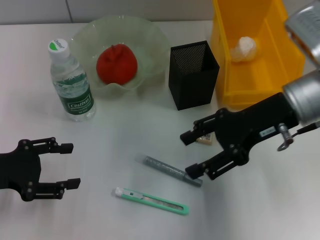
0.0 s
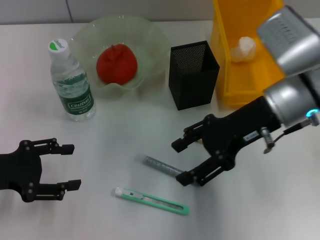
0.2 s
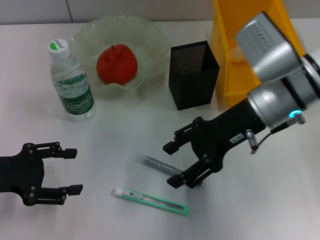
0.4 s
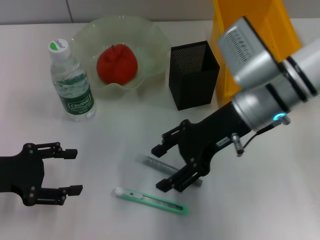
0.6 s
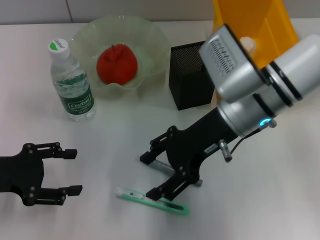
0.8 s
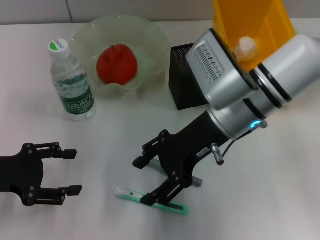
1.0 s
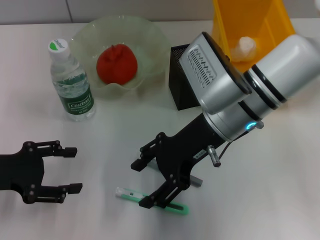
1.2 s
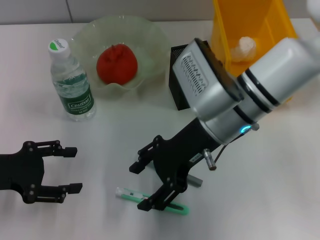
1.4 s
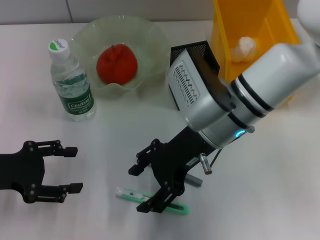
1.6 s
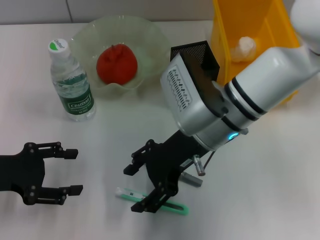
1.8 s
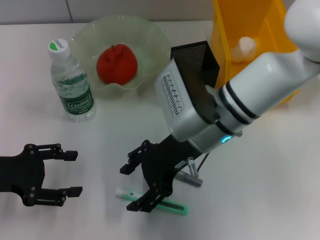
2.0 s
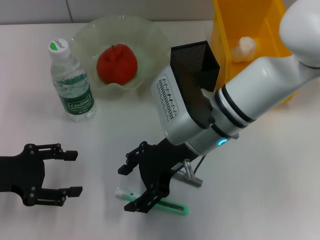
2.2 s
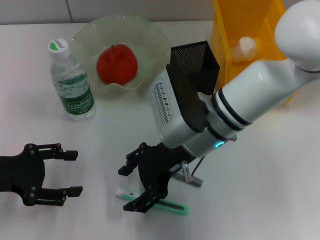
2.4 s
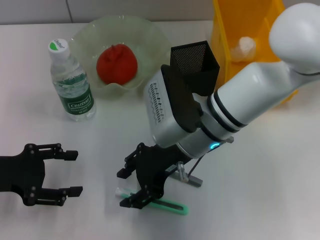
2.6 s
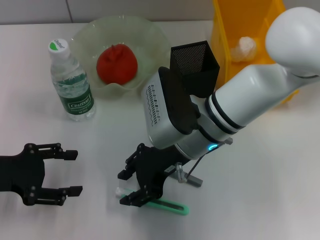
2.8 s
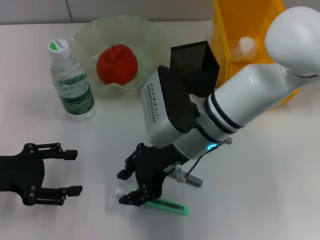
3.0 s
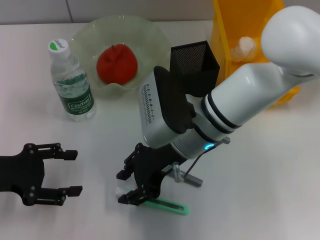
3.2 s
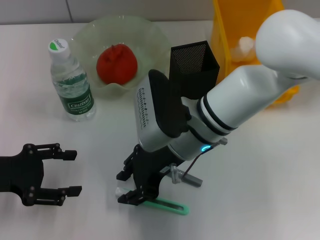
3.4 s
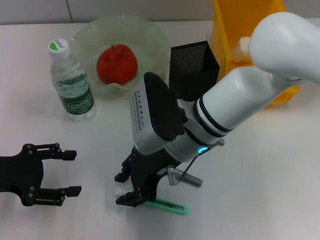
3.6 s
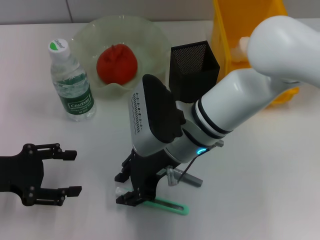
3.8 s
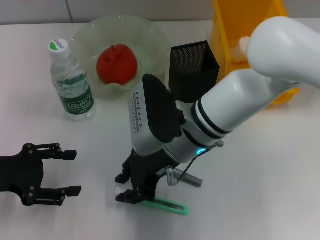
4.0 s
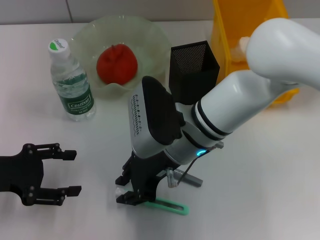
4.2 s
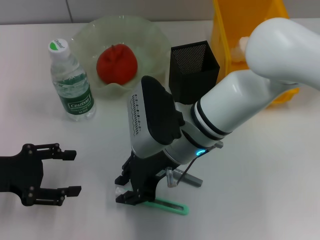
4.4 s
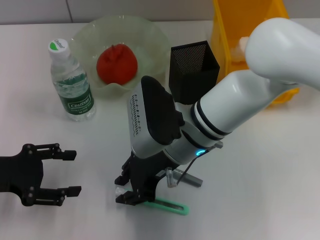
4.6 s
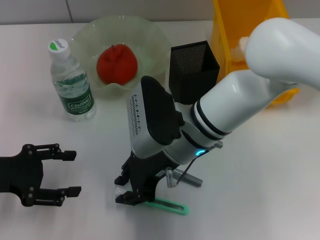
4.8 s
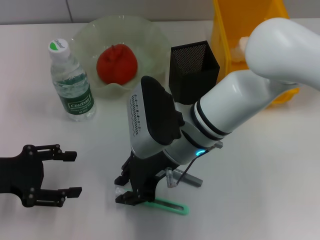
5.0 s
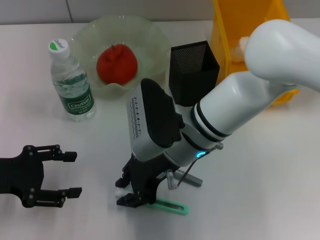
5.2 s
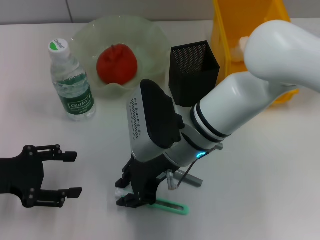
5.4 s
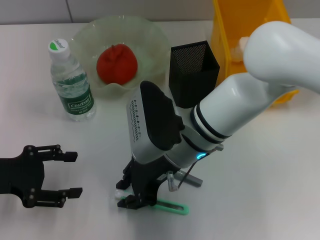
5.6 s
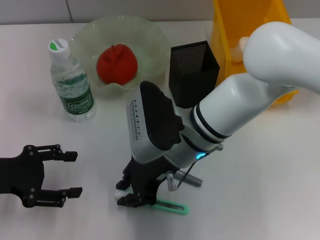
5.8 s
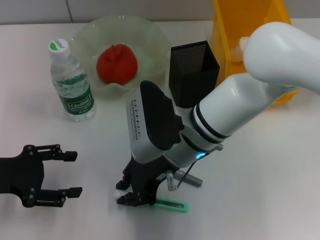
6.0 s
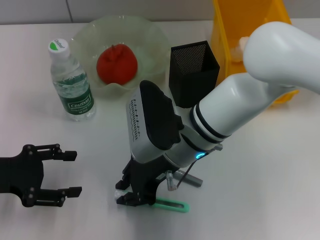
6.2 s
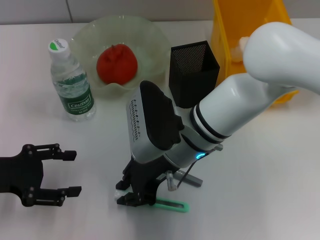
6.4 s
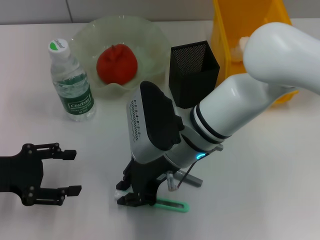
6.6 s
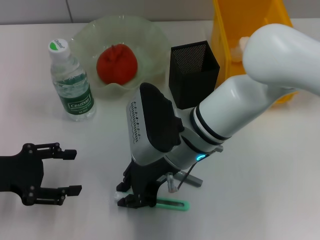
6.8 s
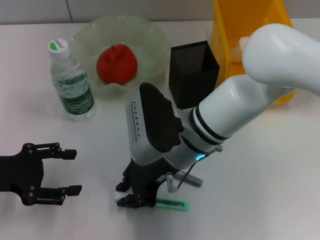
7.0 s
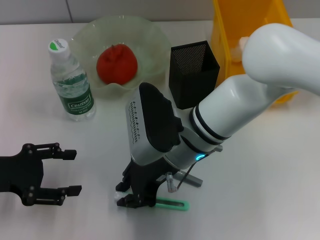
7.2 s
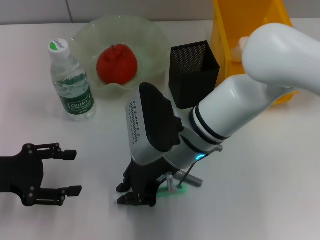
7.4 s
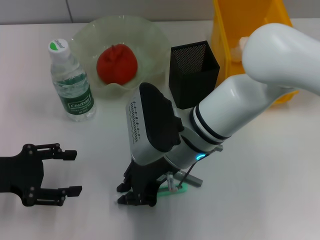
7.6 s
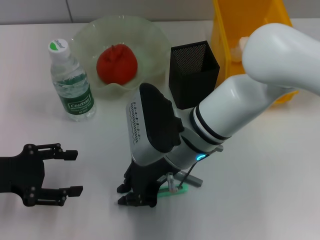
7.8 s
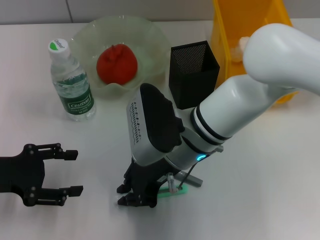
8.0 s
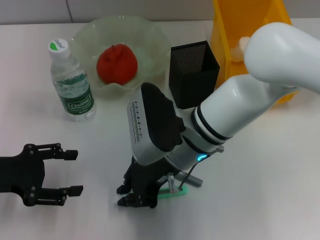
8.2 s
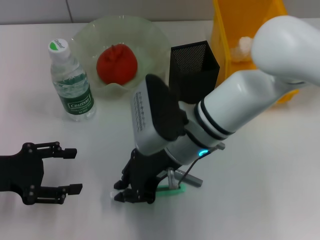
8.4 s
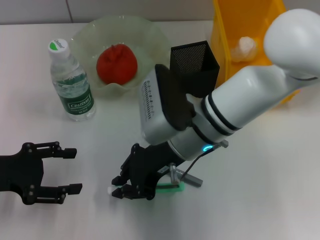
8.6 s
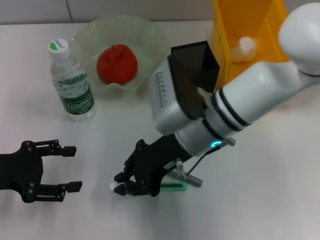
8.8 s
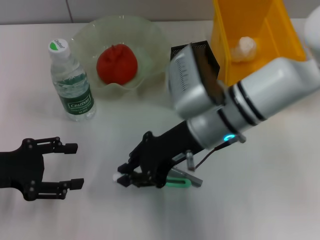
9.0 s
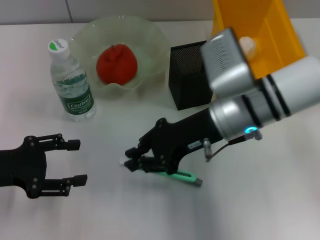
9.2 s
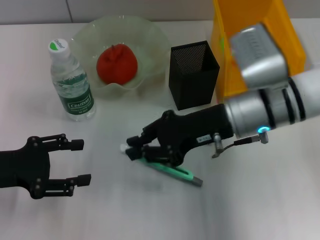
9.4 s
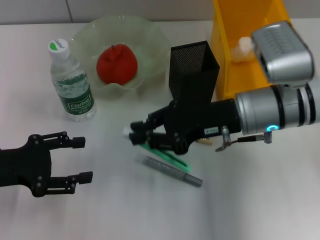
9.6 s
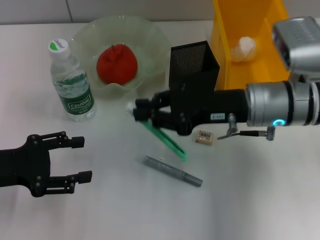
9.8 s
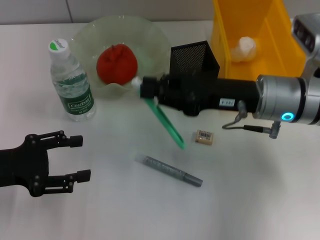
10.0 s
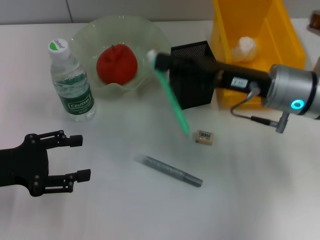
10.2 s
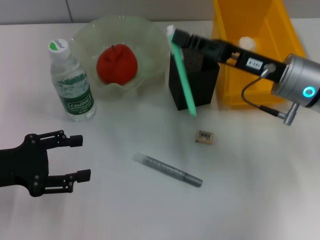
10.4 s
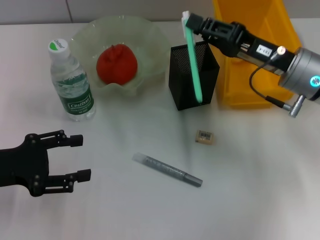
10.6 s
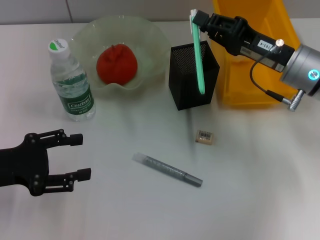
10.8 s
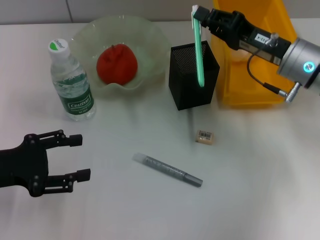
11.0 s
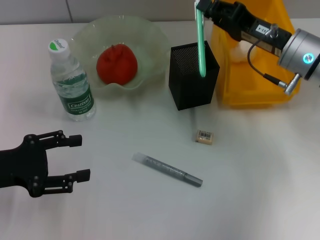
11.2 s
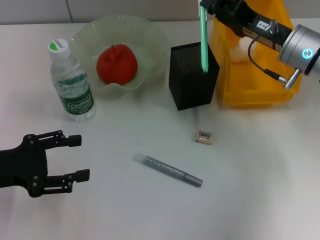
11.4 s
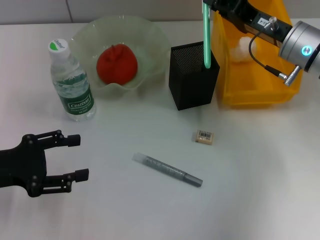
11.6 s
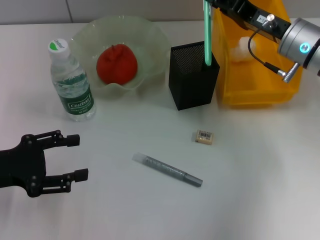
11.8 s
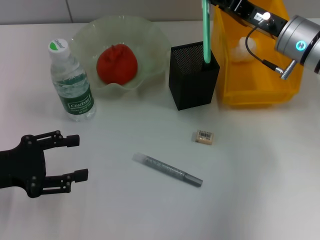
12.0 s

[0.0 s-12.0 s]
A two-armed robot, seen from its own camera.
Step, 0.0 to 7.8 s: Grab the blue utility knife with the right hand.
0.0 to 1.6 s: The right gripper is displaced to the left by approximately 10 cm.
1.6 to 3.0 s: The right gripper closes.
3.0 to 4.4 s: The grippers move only a little.
4.4 to 7.6 s: Both grippers stay about where they are.
7.6 to 9.0 s: The right gripper moves to the right, roughly 5 cm.
9.0 to 10.4 s: The right gripper travels to the right by some 10 cm.
10.4 to 12.0 s: The right gripper shifts about 5 cm forward.

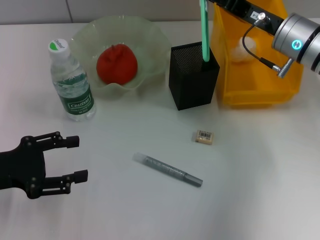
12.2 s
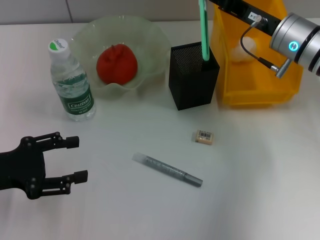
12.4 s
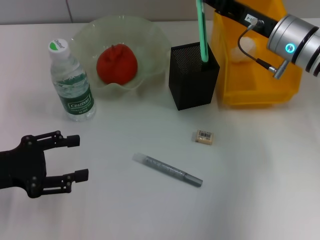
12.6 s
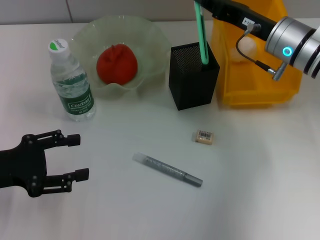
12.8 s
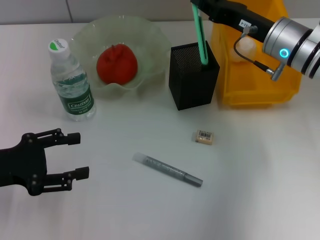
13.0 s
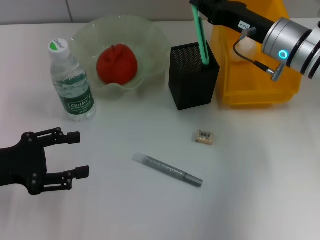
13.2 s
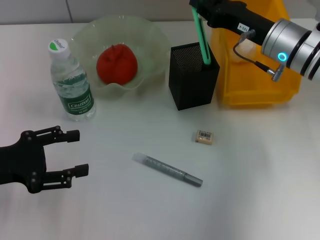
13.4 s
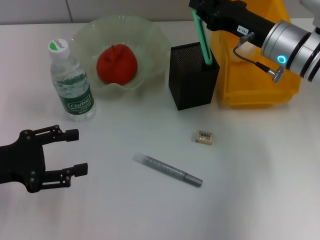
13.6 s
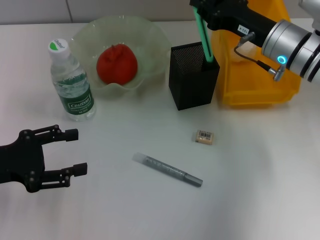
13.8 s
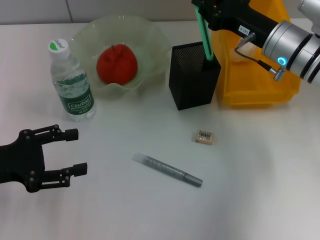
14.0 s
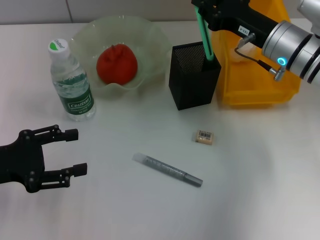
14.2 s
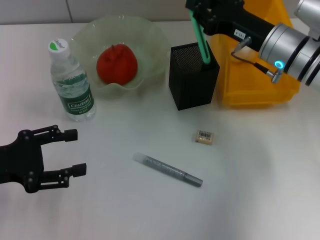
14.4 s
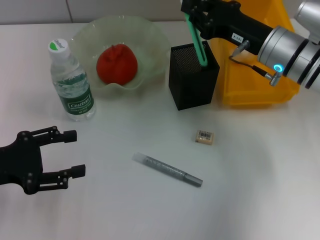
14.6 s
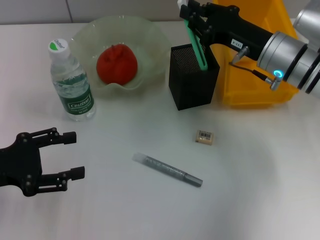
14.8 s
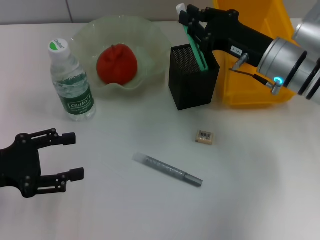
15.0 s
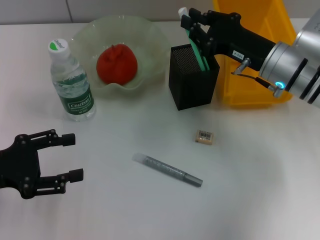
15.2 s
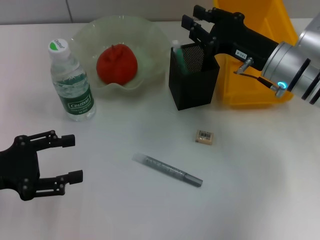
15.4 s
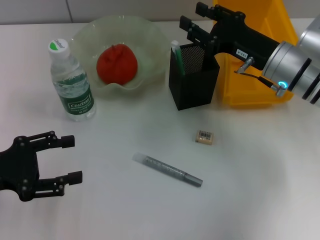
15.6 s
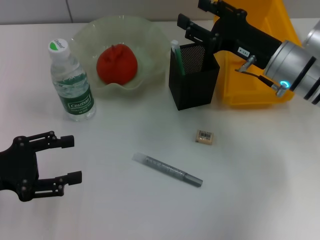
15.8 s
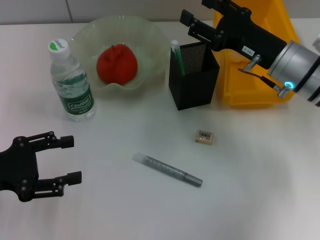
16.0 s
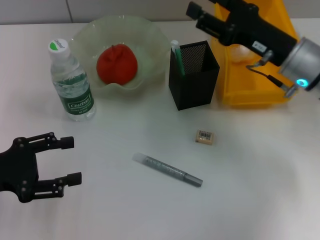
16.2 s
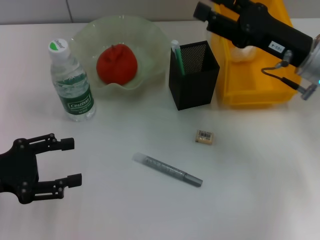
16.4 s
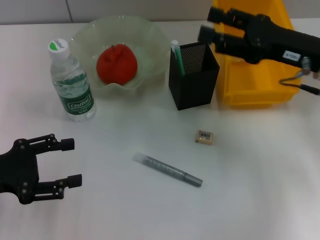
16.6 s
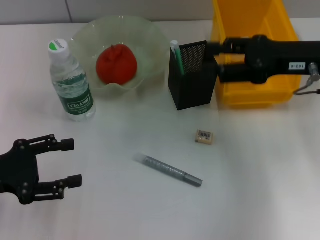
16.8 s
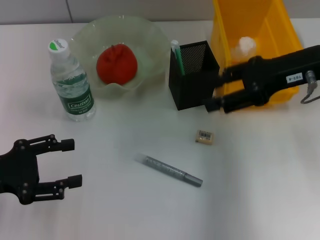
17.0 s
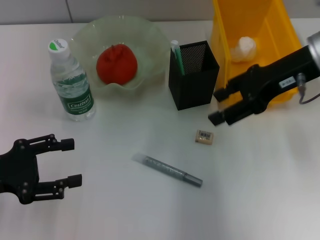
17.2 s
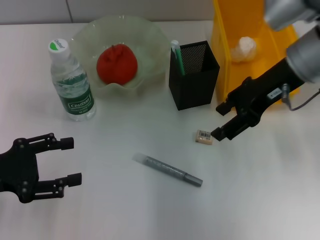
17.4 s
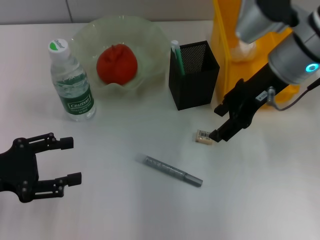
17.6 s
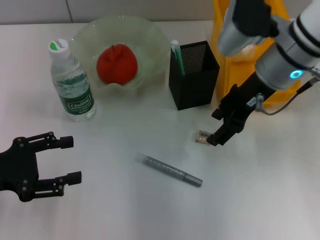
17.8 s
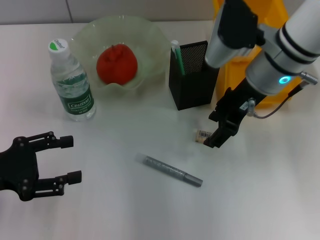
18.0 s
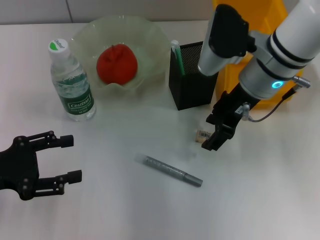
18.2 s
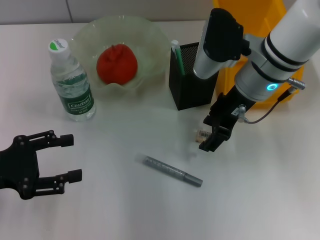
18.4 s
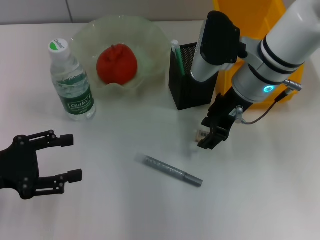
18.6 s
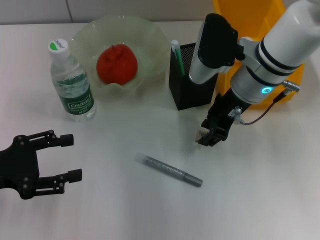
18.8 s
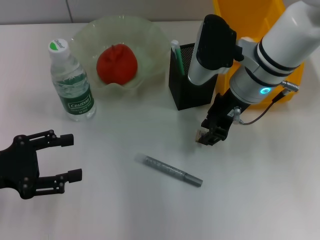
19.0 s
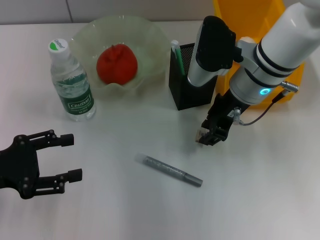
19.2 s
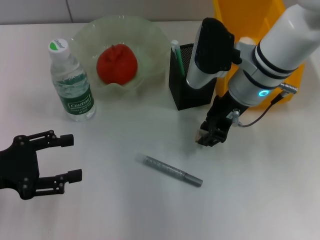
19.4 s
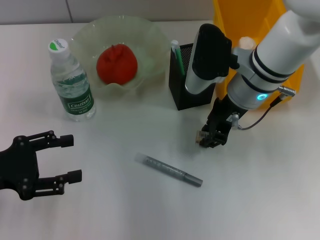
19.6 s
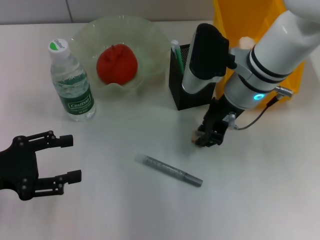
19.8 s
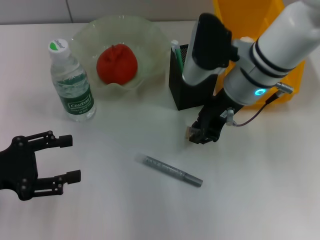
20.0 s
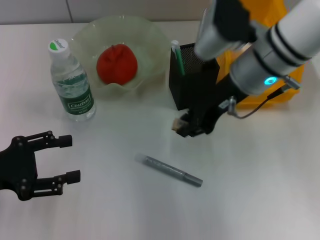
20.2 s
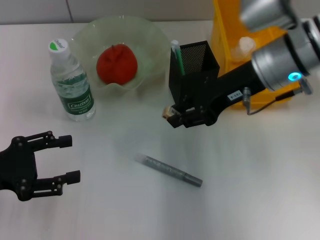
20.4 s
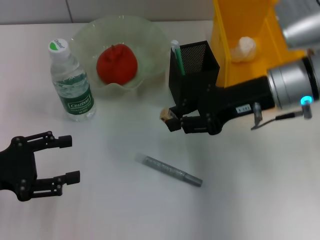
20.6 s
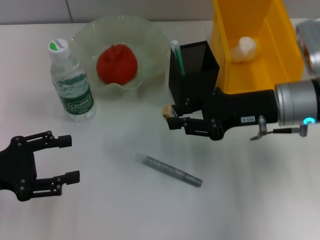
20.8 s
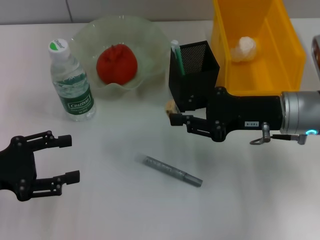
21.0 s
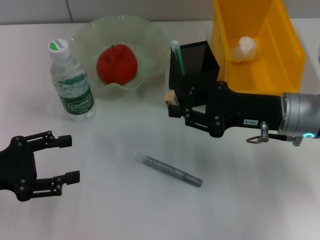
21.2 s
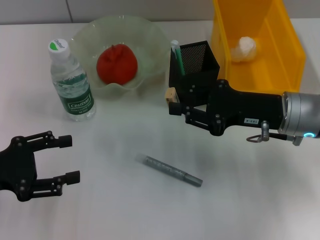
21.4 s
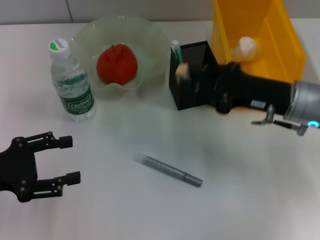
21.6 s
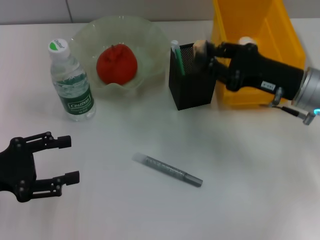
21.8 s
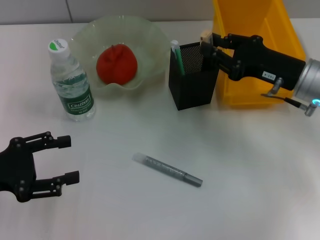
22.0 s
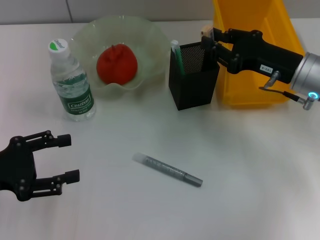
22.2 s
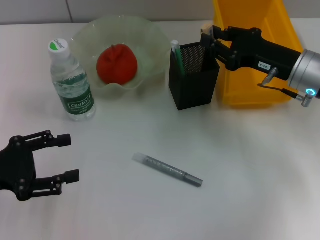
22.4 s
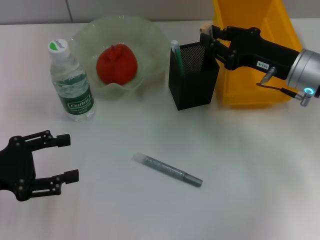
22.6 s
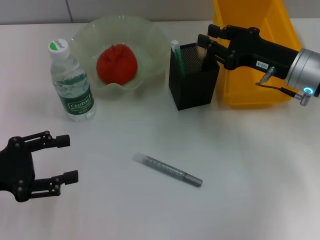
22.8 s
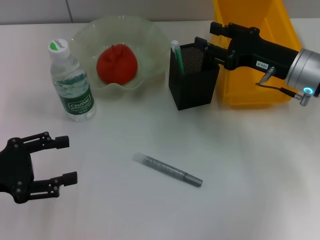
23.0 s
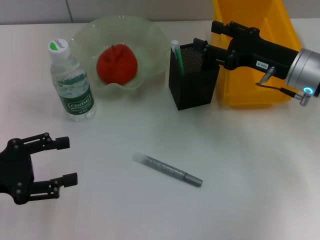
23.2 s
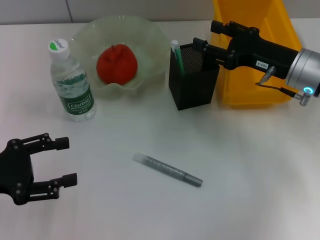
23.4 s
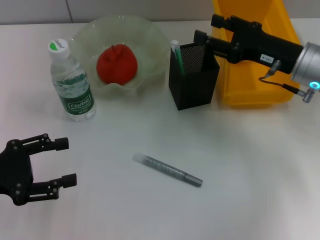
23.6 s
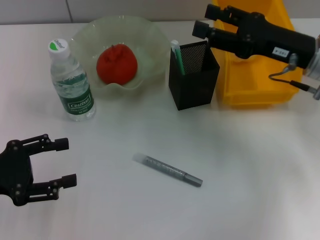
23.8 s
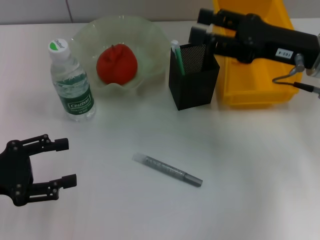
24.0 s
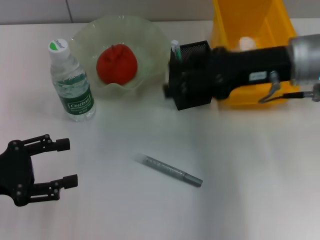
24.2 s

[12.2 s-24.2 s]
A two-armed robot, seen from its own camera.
Step, 12.2 to 15.6 s: Place the blue utility knife into the pen holder with the right hand.
Step, 15.8 to 19.6 s: Grab the eraser with the right hand.
Step, 19.8 to 23.0 s: Put the eraser into the pen holder with the right hand.
13.8 to 15.2 s: The grippers move only a little.
15.2 to 16.6 s: The right gripper goes some 10 cm upward and to the right, and opens its fingers.
16.6 to 18.2 s: The right gripper is displaced to the left by roughly 10 cm.
18.2 to 19.8 s: The right gripper closes up.
19.8 to 21.2 s: The right gripper moves to the right and backward, some 10 cm.
21.2 to 22.6 s: The right gripper shifts by approximately 5 cm.
22.6 to 24.2 s: The right gripper moves upward, some 5 cm, and opens its fingers.
